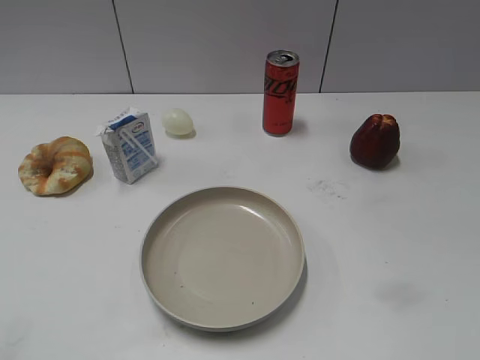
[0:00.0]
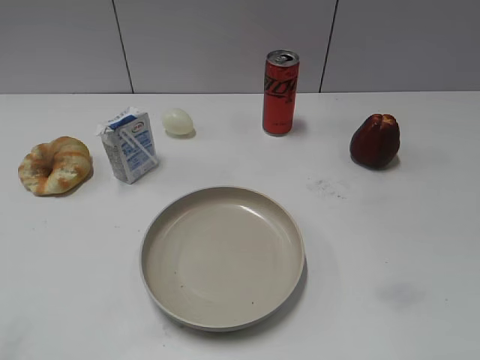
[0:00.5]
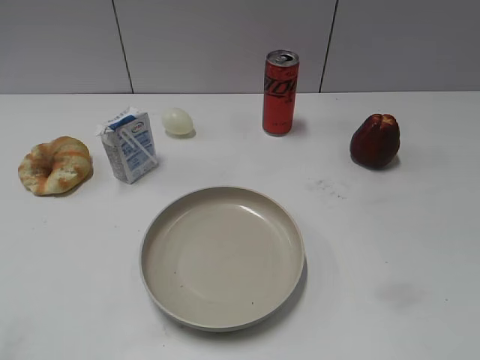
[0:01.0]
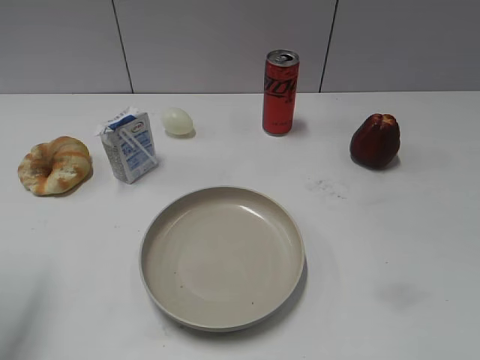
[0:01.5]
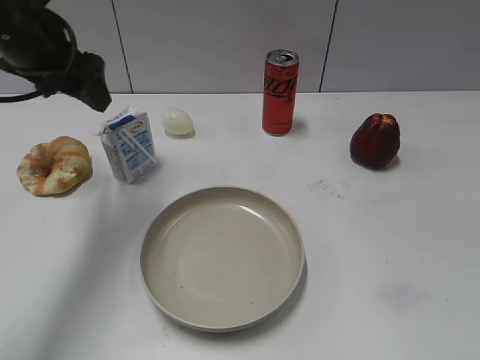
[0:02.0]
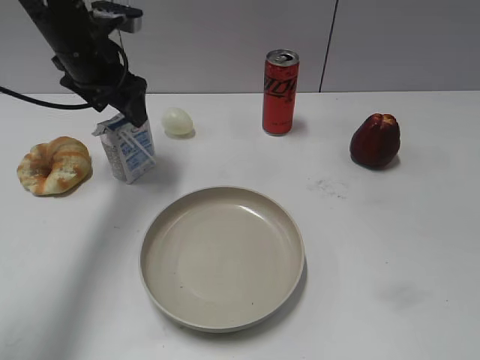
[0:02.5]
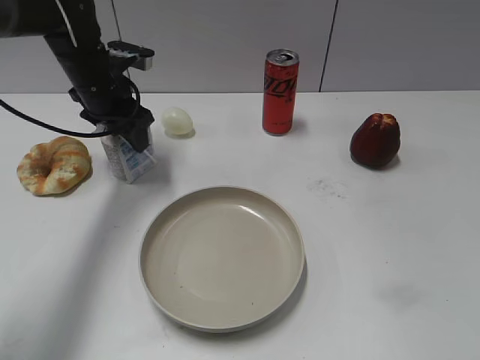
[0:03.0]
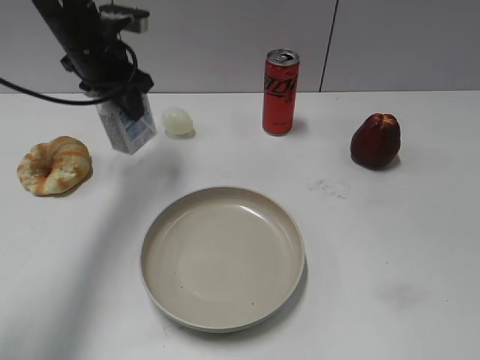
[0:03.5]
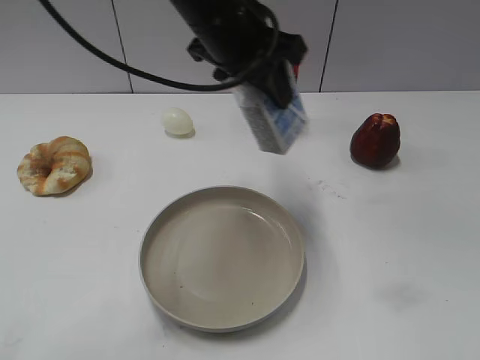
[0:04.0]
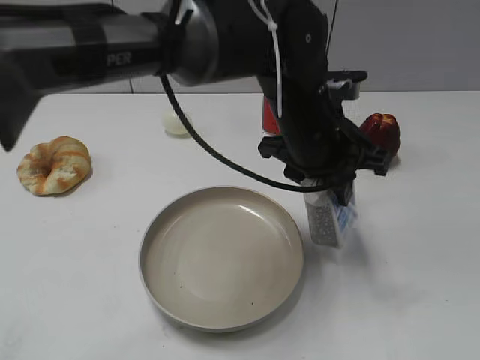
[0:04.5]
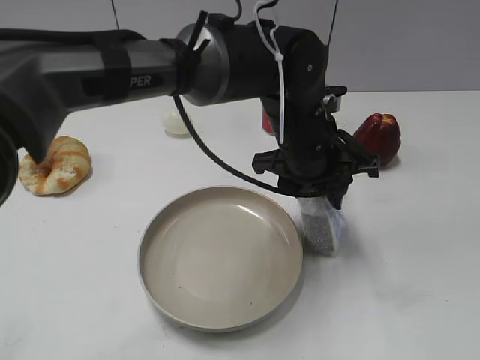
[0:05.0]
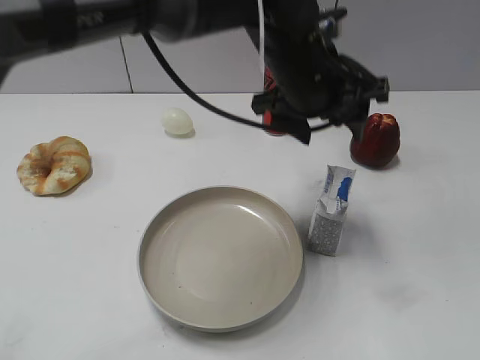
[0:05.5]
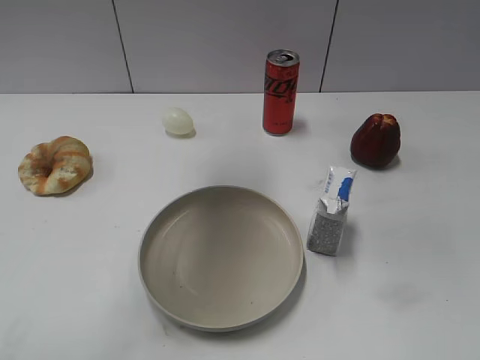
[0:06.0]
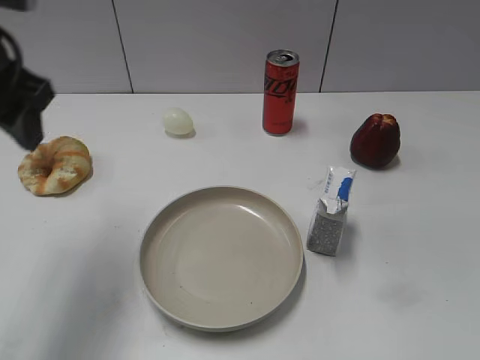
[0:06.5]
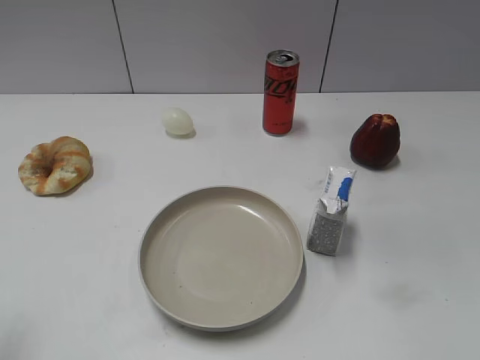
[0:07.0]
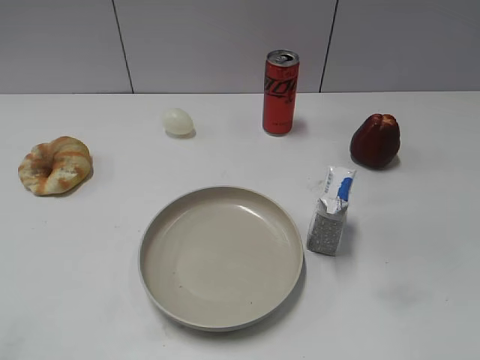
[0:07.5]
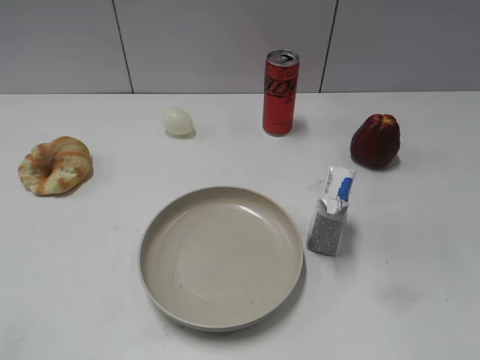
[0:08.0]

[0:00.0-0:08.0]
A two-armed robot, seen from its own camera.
Step, 0:00.0 to 0:03.0: Grasp the milk with left gripper.
Step, 0:03.5 to 0:05.0: Place the milk on the table with left gripper.
0:02.0 to 0:04.0: The left gripper is displaced to the right by about 20 cm, and closes.
0:04.0 to 0:06.0: The left gripper moves upward and to the left, about 10 cm, and opens up.
0:06.0 to 0:08.0: The left gripper is displaced backward and to the left by approximately 40 cm.
